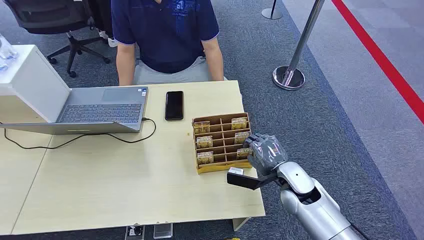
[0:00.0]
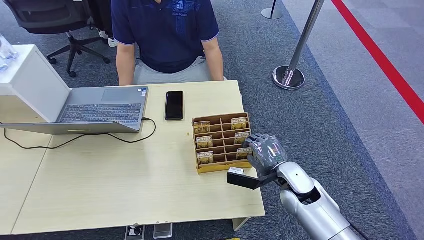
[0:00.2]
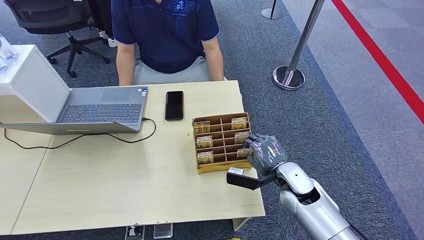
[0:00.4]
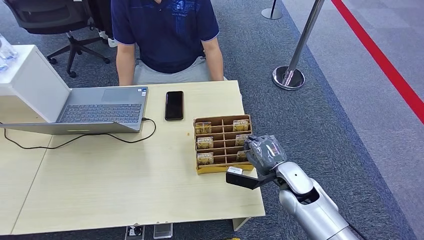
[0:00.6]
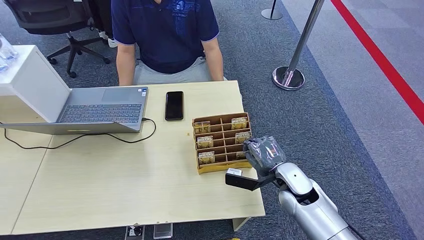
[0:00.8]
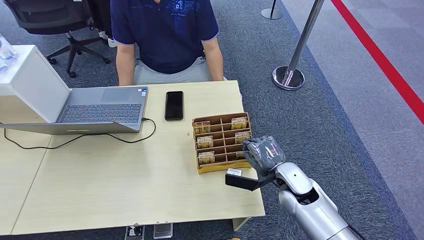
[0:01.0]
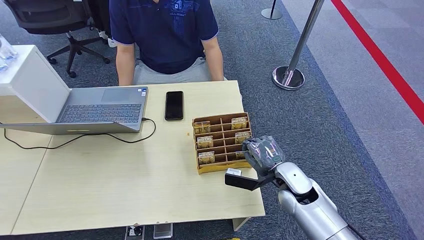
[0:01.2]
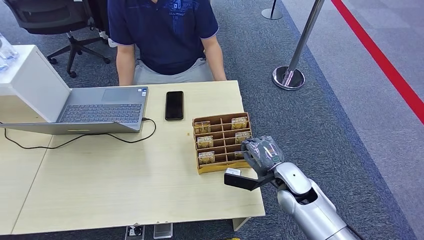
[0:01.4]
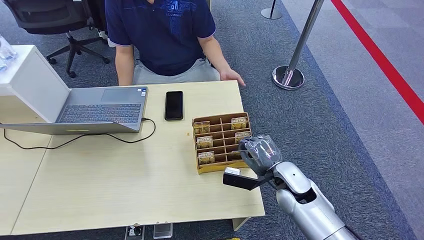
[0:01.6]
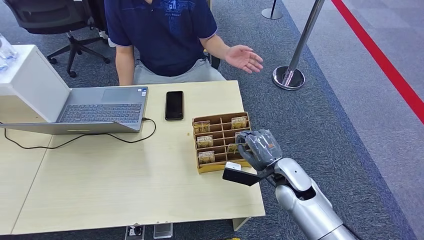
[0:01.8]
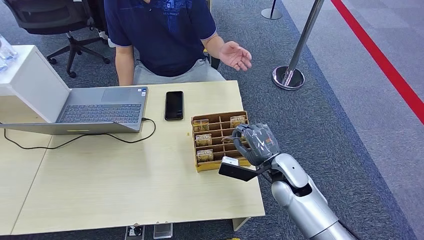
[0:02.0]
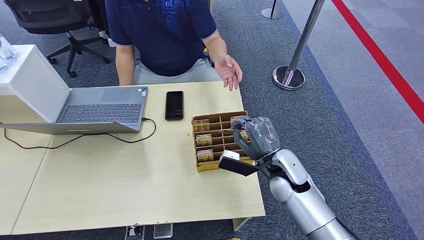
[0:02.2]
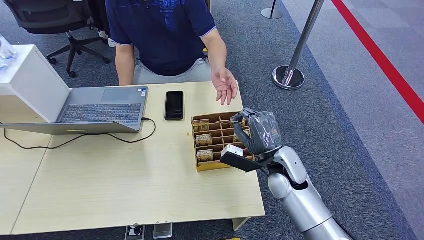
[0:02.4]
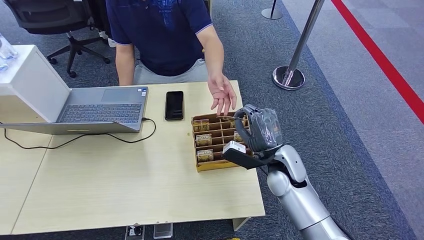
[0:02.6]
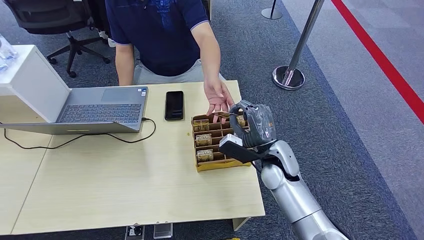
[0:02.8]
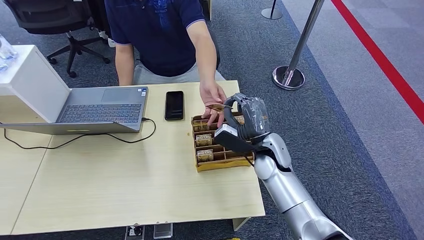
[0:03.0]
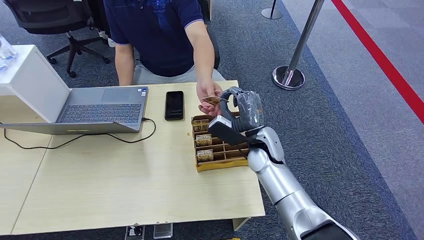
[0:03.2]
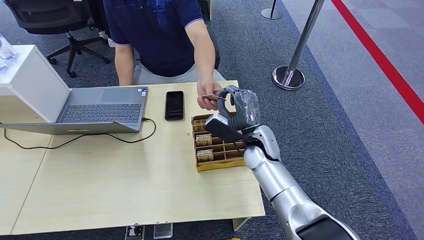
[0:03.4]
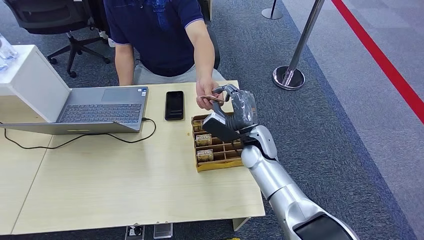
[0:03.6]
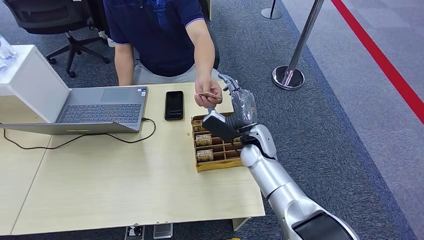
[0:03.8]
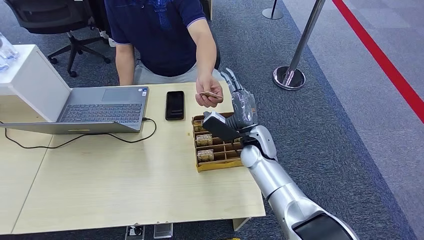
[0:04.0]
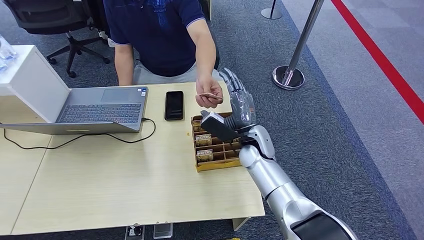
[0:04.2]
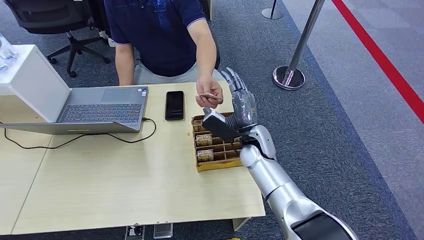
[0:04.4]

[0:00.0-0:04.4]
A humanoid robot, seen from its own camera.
Step, 0:00.0 to 0:02.4: Pick up the key card from the card box.
Step, 0:02.8 to 0:04.4: Hand the key card to the target.
0:01.4 to 0:03.0: The right hand moves forward, to the left and upward, some 10 cm.
0:03.0 to 0:04.4: The hands move only a little.

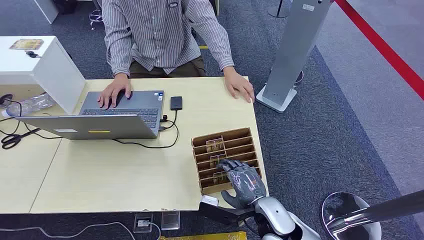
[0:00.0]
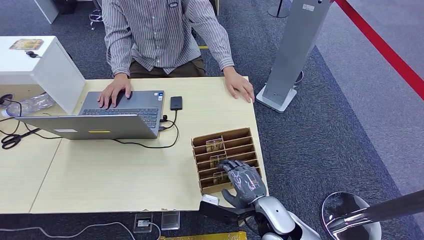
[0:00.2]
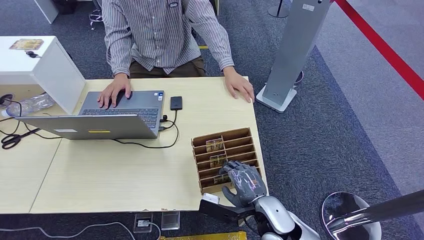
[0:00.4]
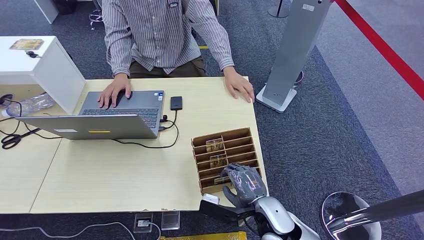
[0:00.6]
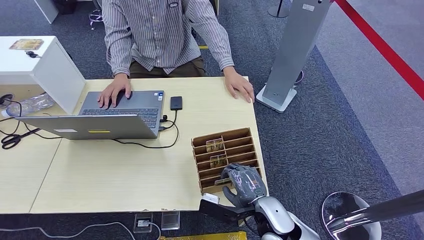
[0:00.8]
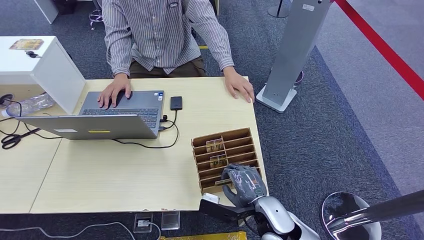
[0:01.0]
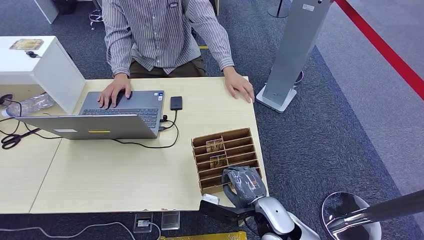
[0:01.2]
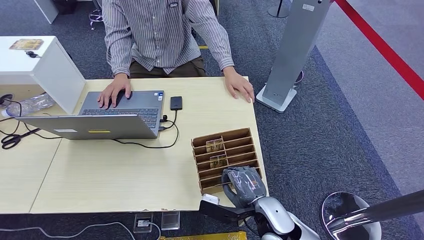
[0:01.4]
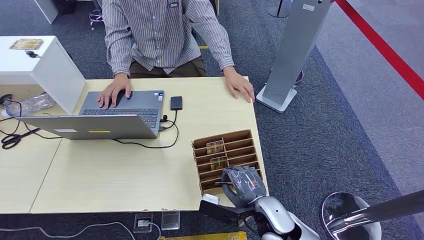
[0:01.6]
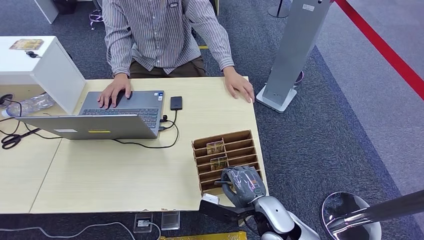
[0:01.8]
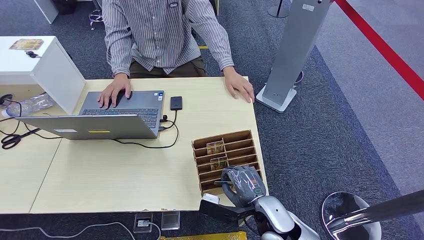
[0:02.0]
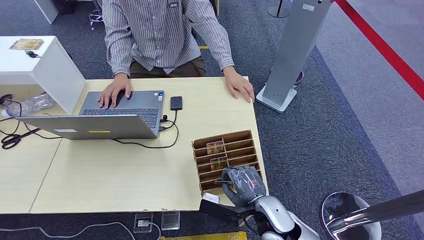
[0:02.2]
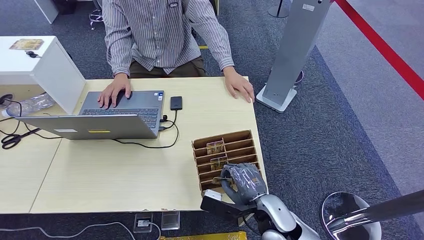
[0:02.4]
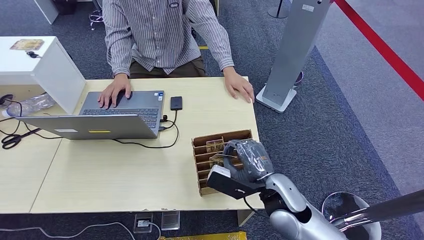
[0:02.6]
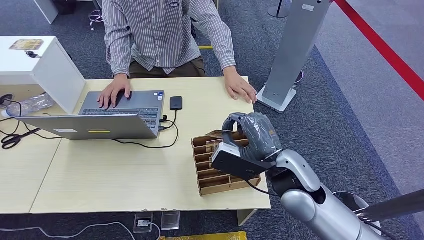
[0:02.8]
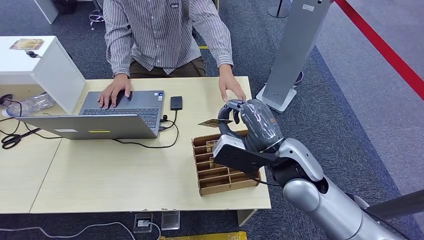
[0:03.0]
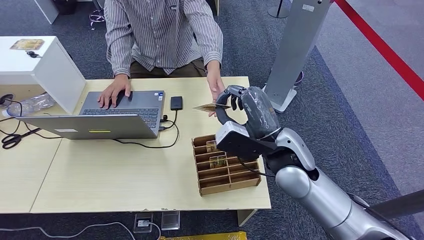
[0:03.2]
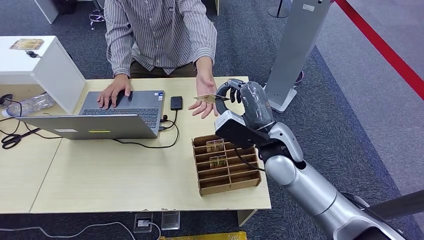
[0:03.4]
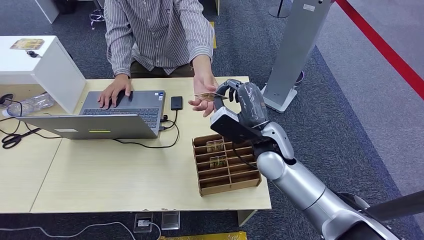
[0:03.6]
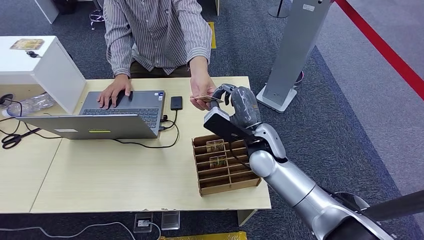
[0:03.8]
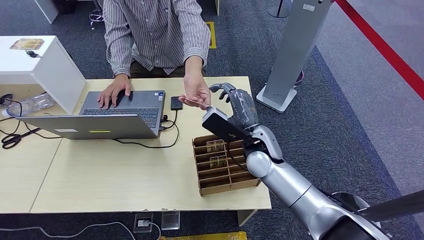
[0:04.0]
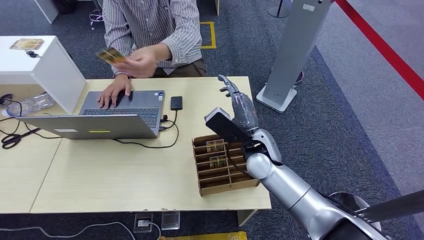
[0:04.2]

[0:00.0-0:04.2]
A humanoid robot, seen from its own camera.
Step, 0:00.0 to 0:02.6: Pick up the key card from the card box.
Step, 0:03.4 to 0:04.2: Hand the key card to the target.
0:01.4 to 0:02.8: The right hand travels upward and forward by approximately 15 cm.
0:02.8 to 0:04.2: The right hand travels forward by roughly 10 cm.
